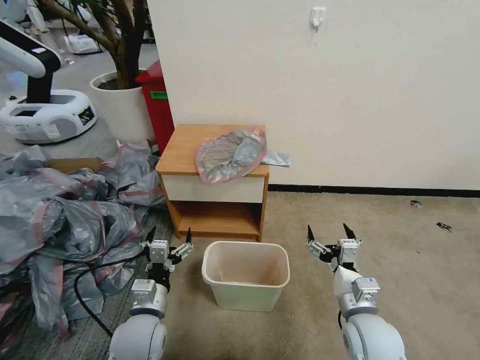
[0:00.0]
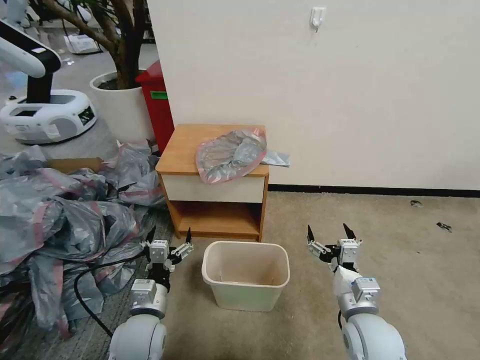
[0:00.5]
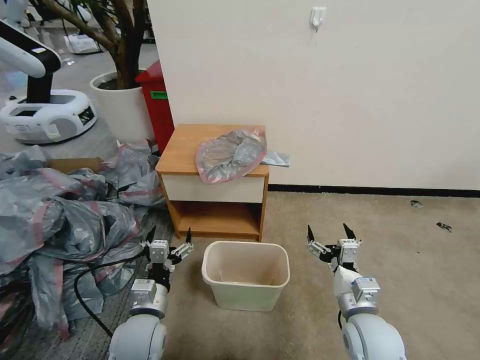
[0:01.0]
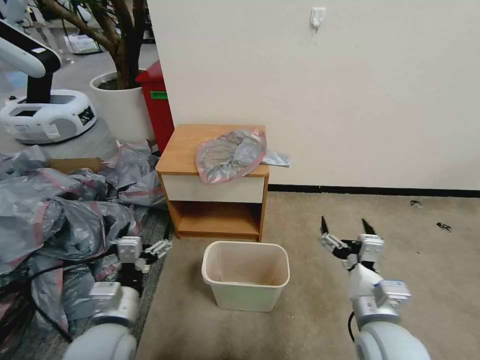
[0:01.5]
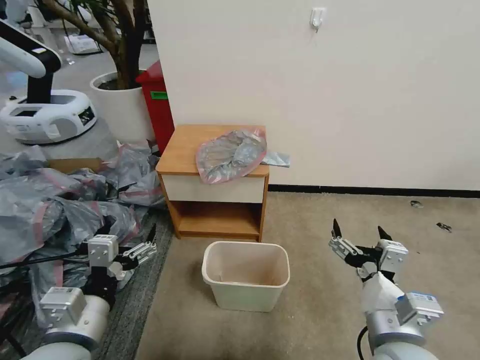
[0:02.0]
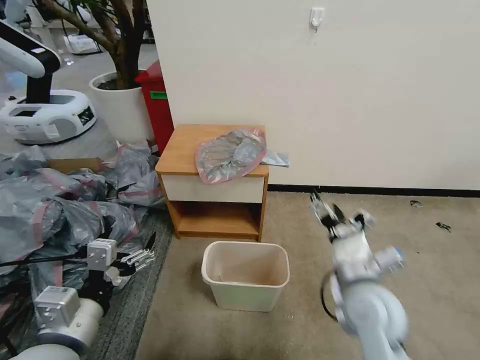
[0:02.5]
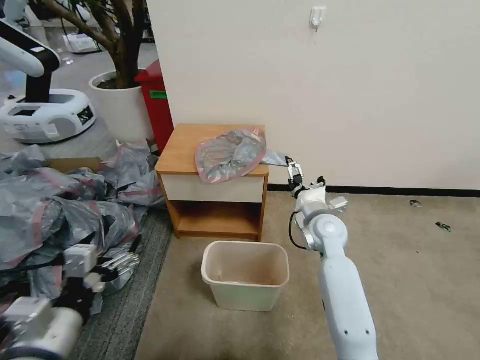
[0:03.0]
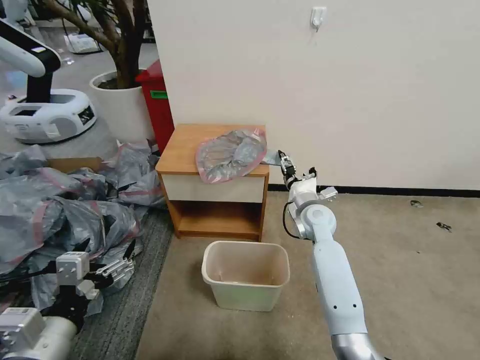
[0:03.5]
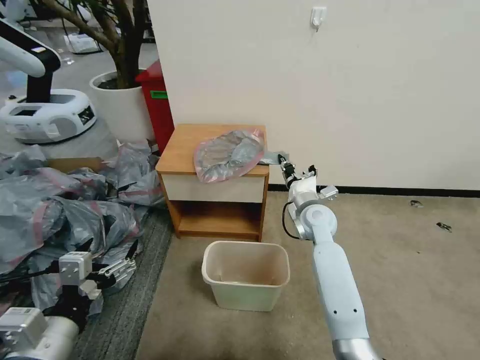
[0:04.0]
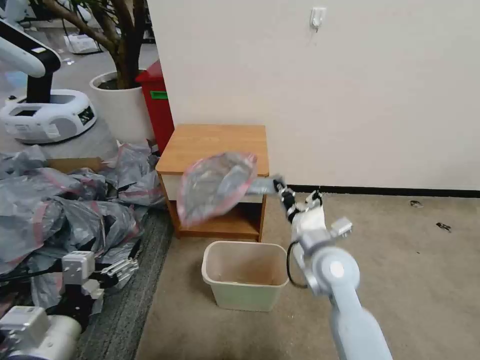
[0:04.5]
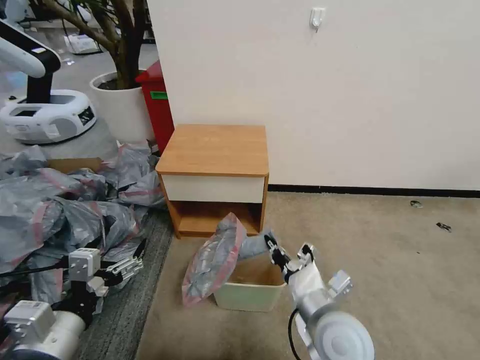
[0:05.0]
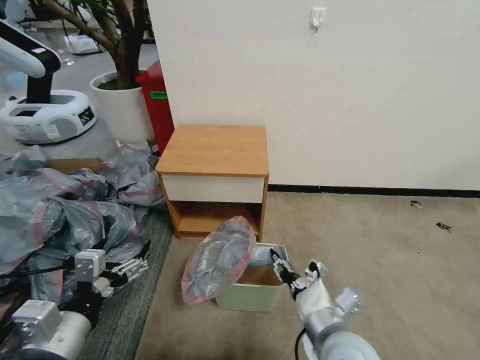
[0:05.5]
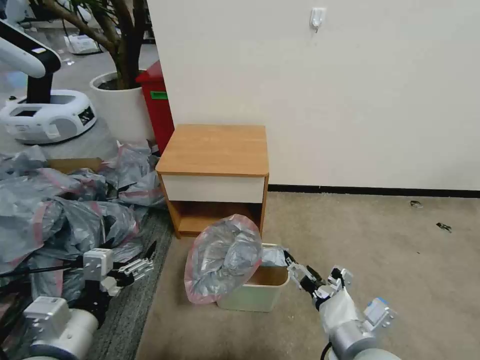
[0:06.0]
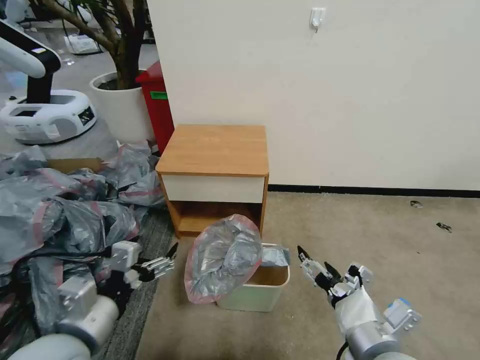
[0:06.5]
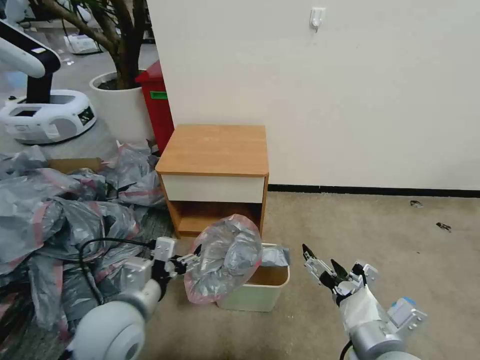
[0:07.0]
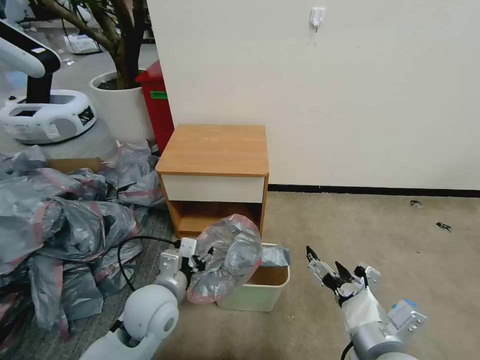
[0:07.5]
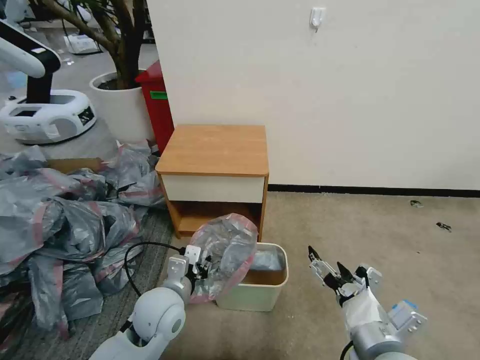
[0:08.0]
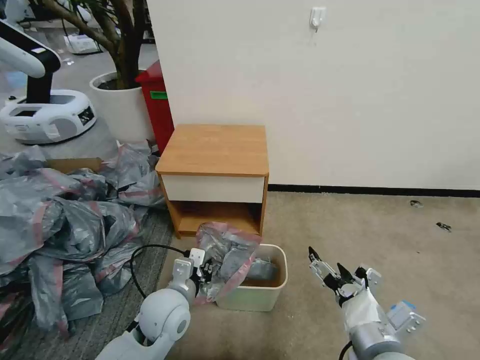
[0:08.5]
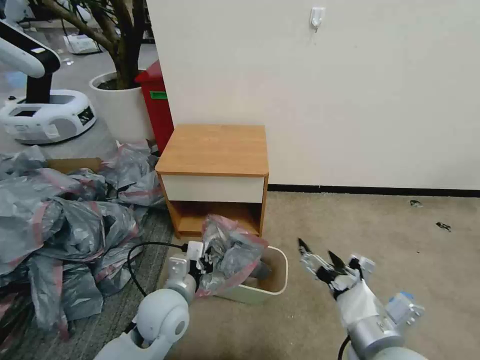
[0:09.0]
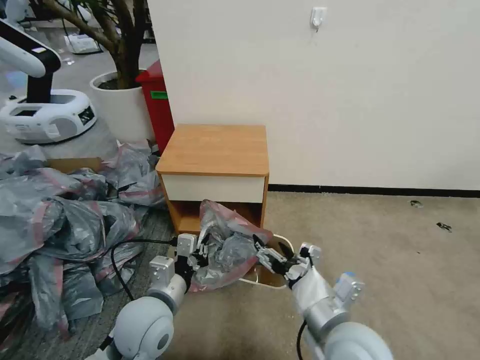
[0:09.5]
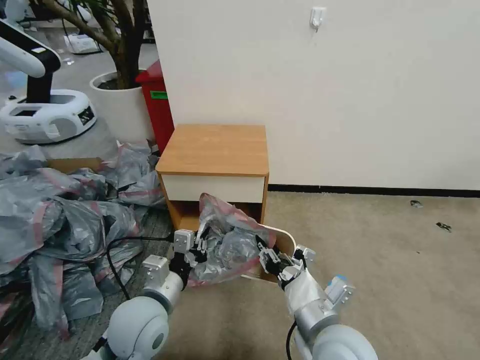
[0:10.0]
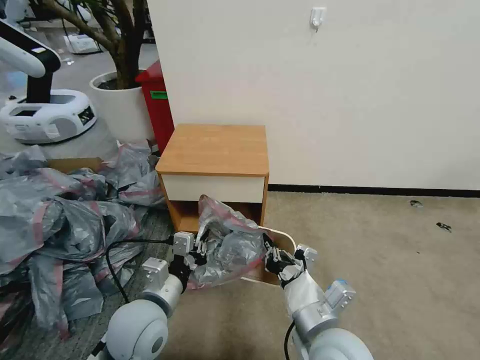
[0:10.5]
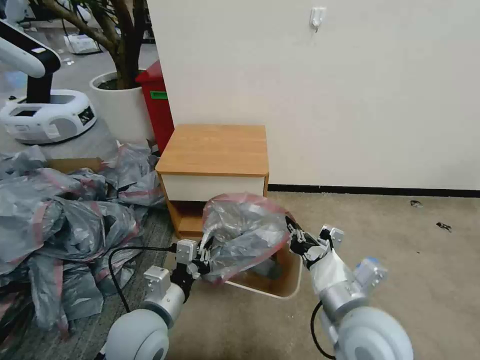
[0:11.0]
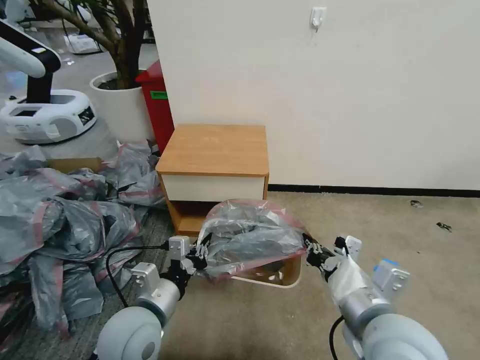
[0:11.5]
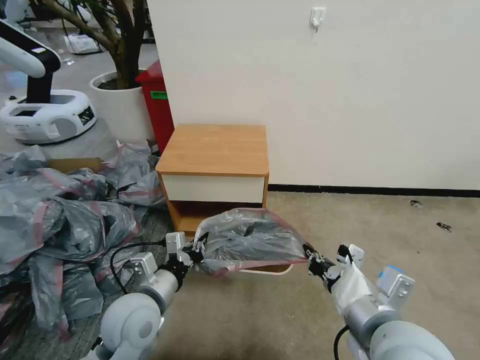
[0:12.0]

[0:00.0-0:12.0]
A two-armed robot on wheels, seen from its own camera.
Task of the whole recording: Pick up the garbage bag from the table and place it over the trash can.
0:02.0 to 0:04.0: The right gripper heads forward, covering about 30 cm, and closes.
0:04.0 to 0:06.0: The right gripper moves backward, some 30 cm, and opens.
0:06.0 to 0:08.0: The left gripper moves forward, downward and to the right, some 20 cm, and closes up.
0:08.0 to 0:10.0: The left gripper shifts by about 5 cm, and closes. The right gripper shifts approximately 10 cm to the left, and closes.
0:10.0 to 0:12.0: The right gripper moves upward and to the right, approximately 10 cm, and closes.

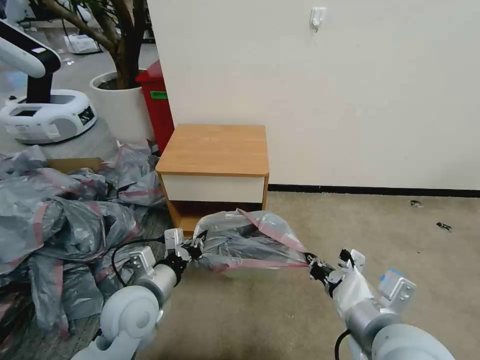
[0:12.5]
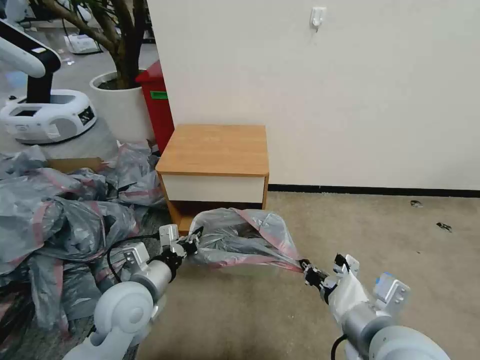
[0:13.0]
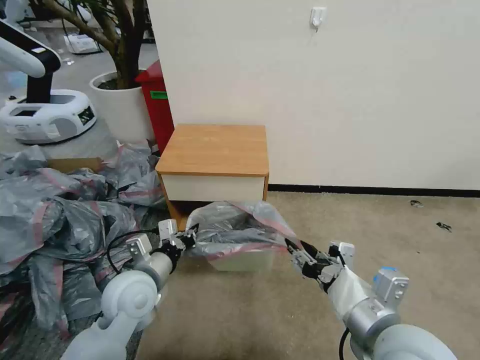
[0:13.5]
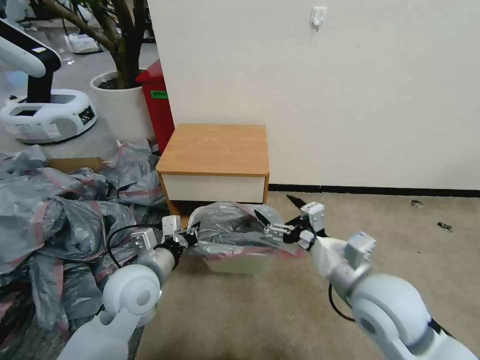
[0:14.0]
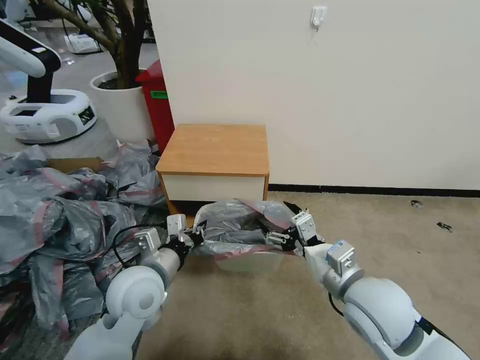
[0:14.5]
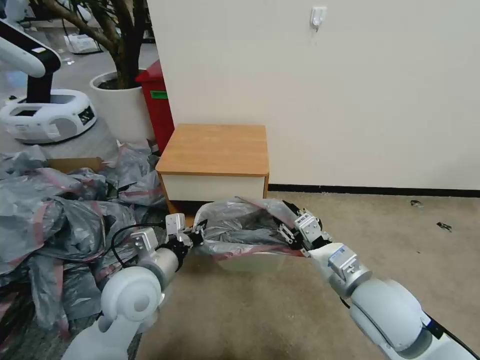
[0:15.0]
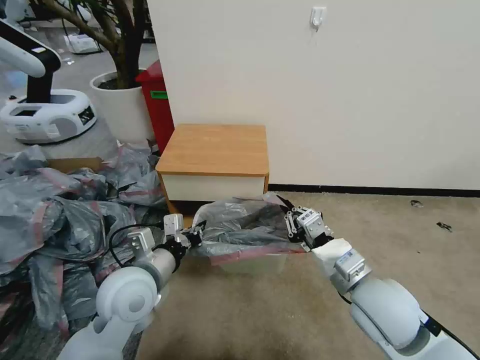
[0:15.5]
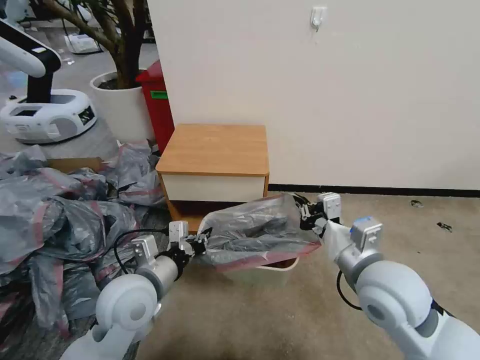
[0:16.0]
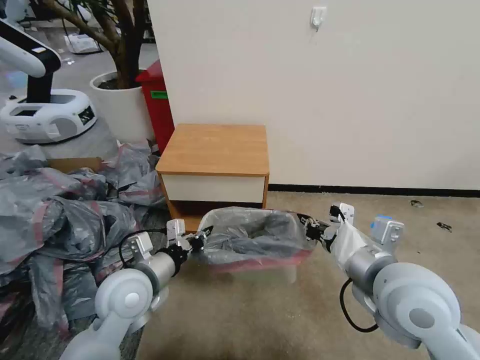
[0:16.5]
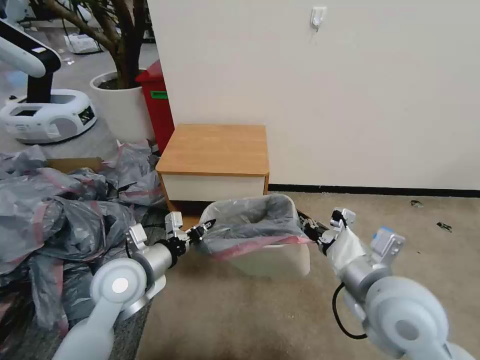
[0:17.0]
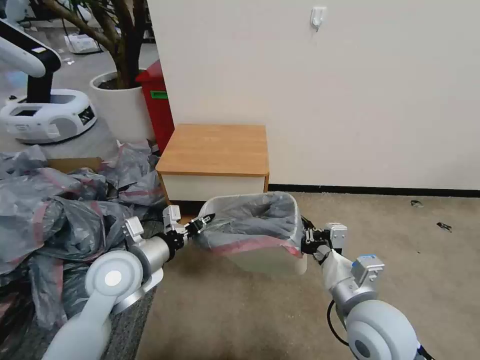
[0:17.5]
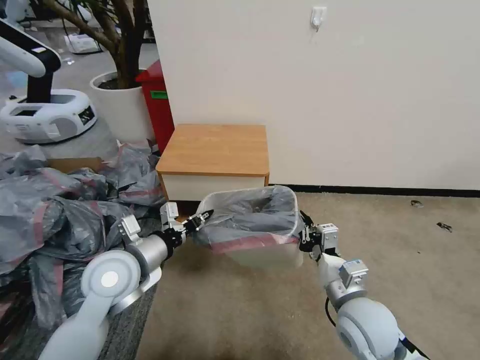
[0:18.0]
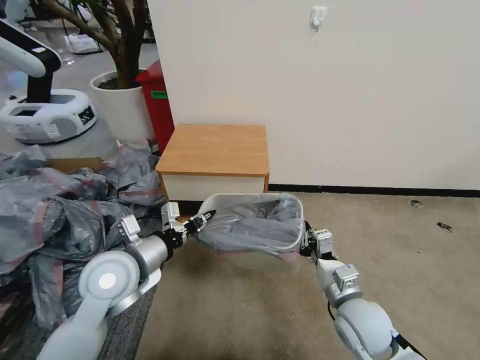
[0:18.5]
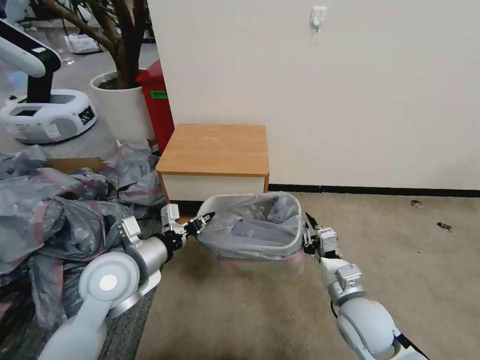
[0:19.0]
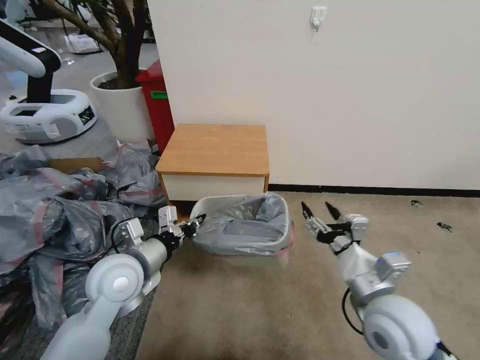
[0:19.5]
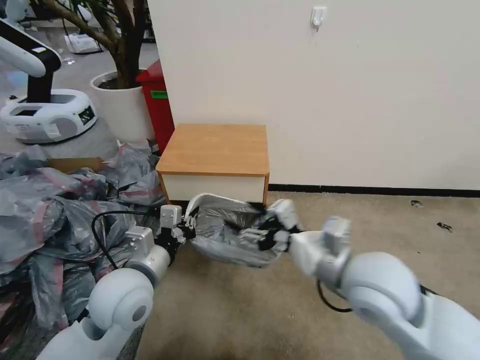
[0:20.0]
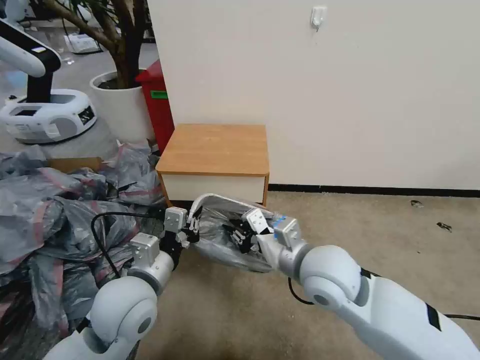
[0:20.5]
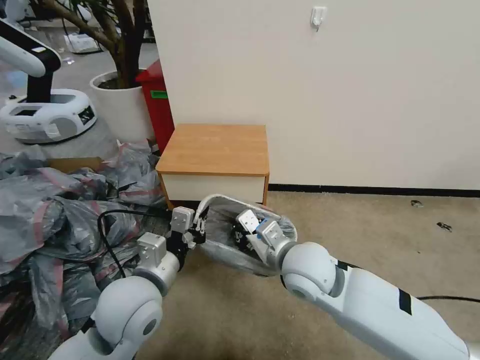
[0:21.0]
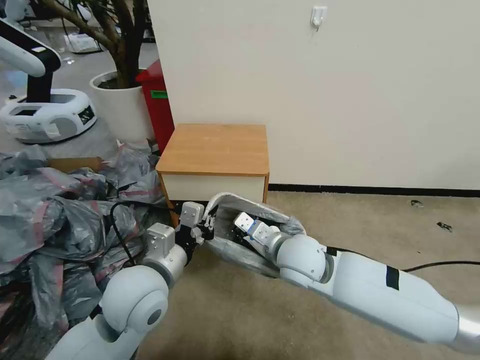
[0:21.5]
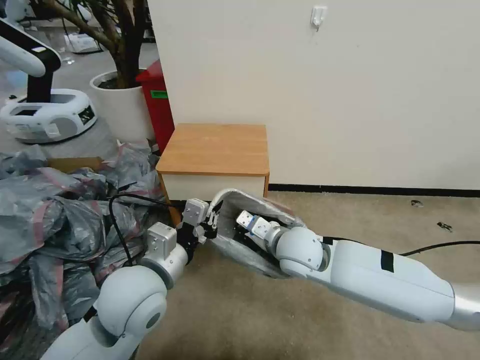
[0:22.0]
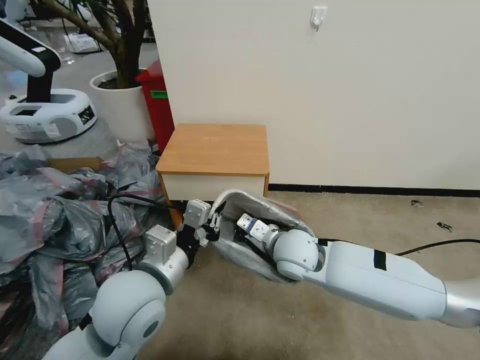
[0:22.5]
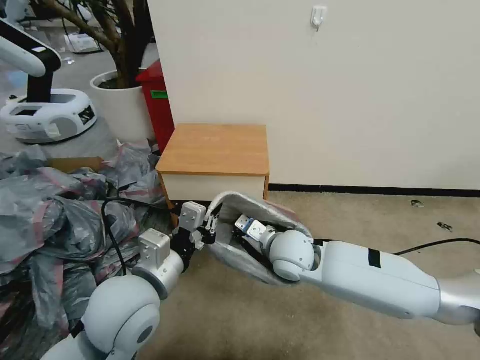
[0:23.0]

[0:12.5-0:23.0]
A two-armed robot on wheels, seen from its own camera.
Task of the whole recording: Pick up the garbage bag from the table and place it over the trash can.
0:12.5 to 0:14.5: The right gripper goes roughly 10 cm forward, and opens its fingers.
0:14.5 to 0:16.5: The right gripper travels upward by about 5 cm, and closes.
0:16.5 to 0:19.0: The right gripper moves downward, roughly 15 cm.
0:19.0 to 0:21.0: The right gripper is displaced to the left, upward and forward by roughly 15 cm, and opens and closes again; the left gripper is displaced to the right by about 5 cm.
0:21.0 to 0:23.0: The right gripper is displaced forward by roughly 5 cm.

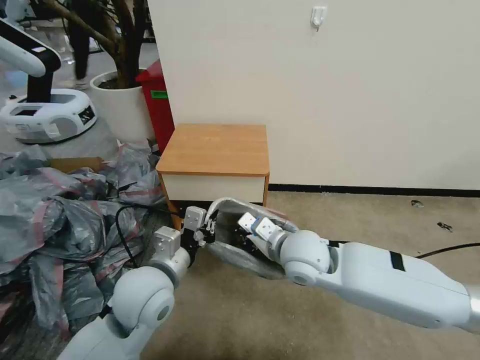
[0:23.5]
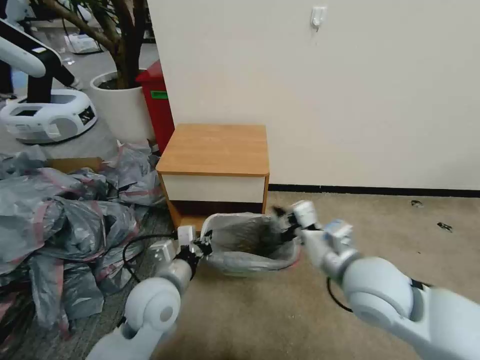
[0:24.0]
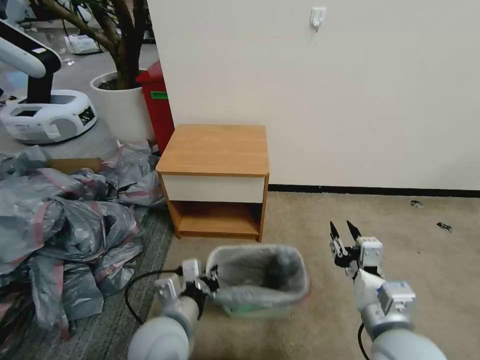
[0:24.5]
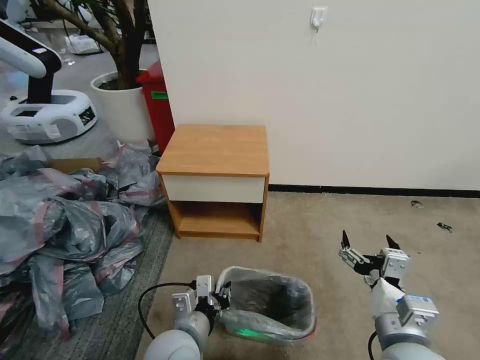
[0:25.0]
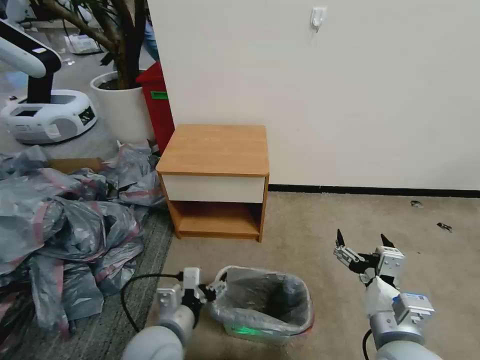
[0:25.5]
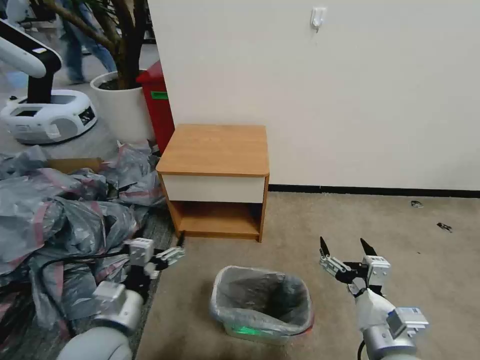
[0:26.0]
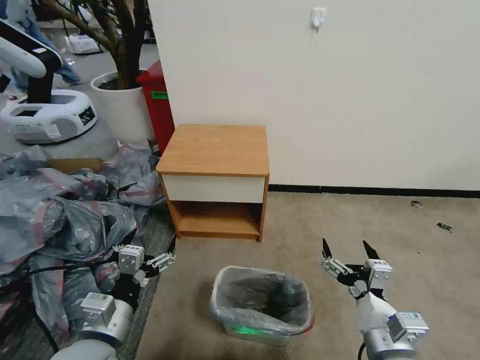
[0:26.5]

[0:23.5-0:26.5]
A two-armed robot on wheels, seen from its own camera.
Task of the whole recording: Pick up the garbage bag from the table and place it over the trash can.
0:23.5 to 0:25.0: The left gripper shifts about 10 cm downward and backward, while the right gripper heads backward and to the right, covering approximately 25 cm, and opens.
0:25.0 to 0:26.5: The left gripper travels to the left and upward by approximately 15 cm, and opens up.
